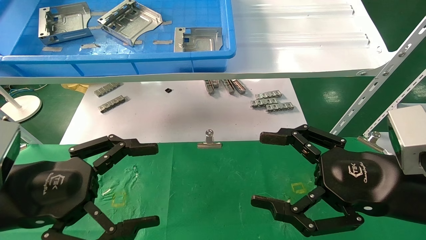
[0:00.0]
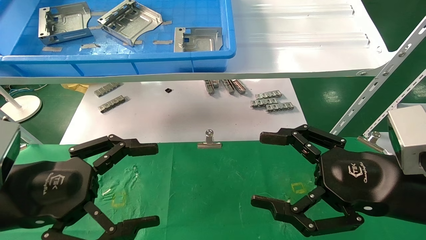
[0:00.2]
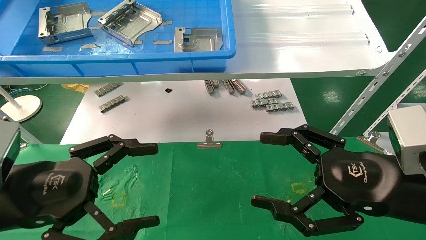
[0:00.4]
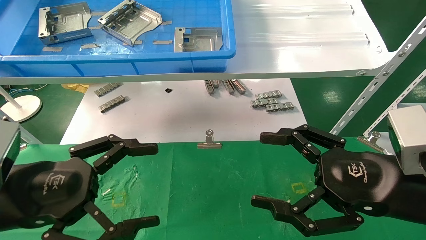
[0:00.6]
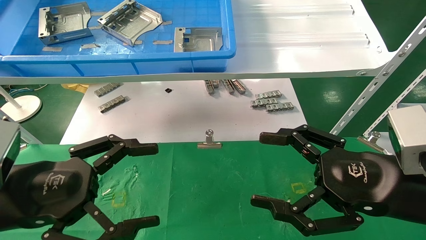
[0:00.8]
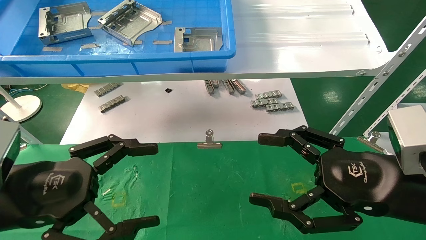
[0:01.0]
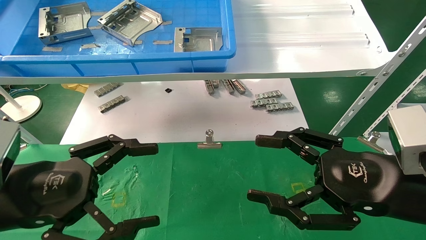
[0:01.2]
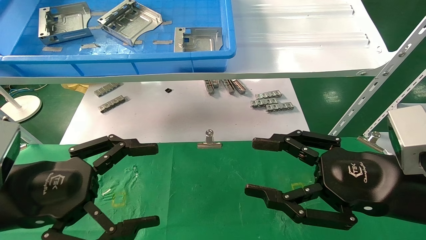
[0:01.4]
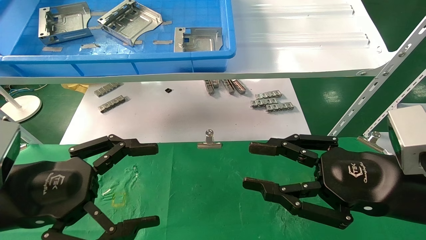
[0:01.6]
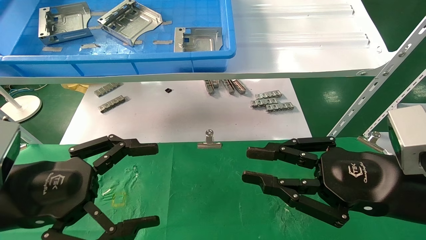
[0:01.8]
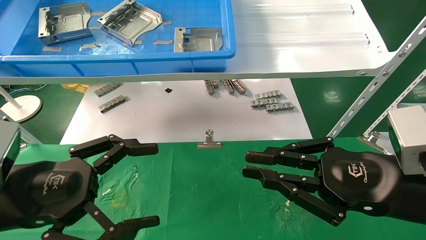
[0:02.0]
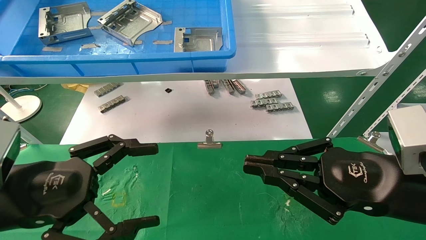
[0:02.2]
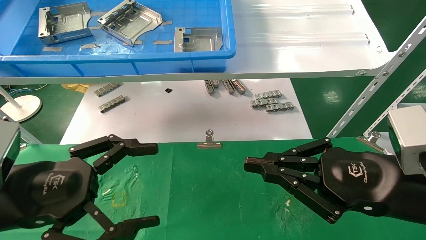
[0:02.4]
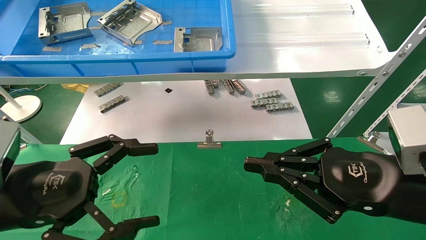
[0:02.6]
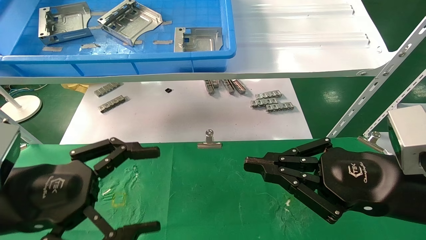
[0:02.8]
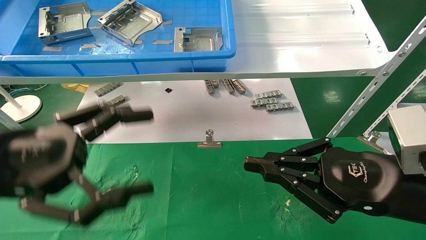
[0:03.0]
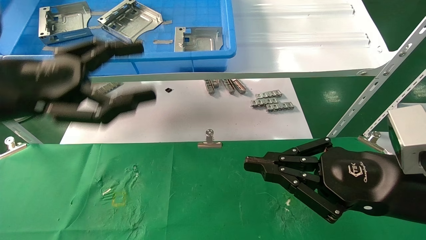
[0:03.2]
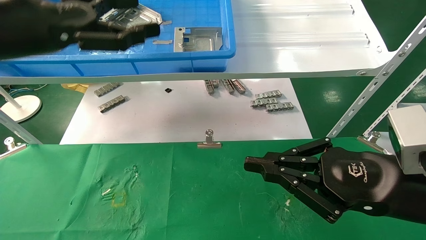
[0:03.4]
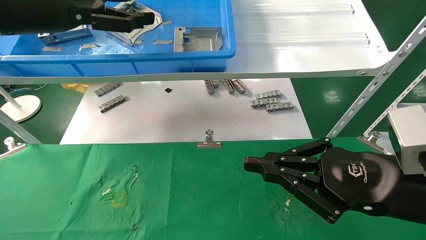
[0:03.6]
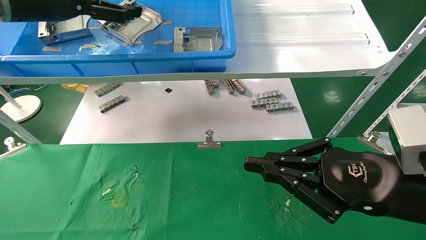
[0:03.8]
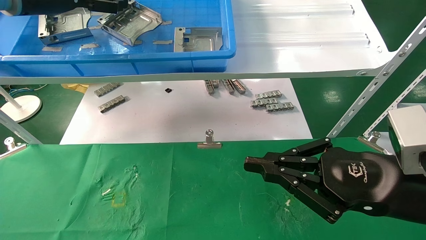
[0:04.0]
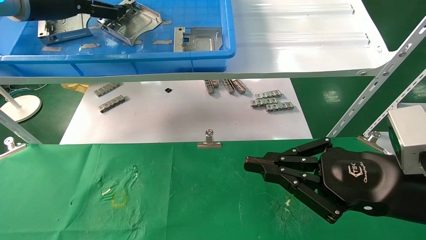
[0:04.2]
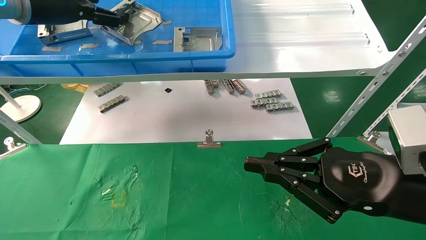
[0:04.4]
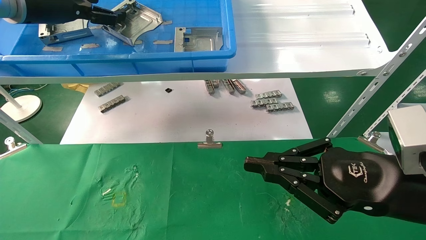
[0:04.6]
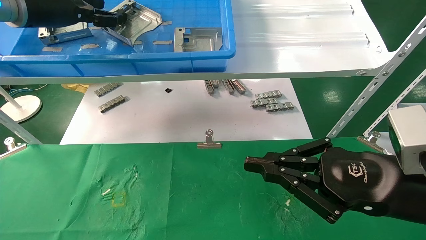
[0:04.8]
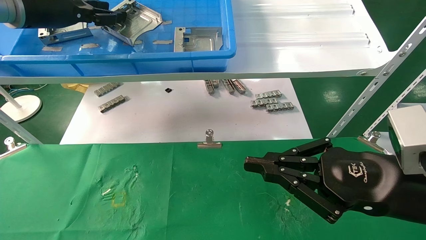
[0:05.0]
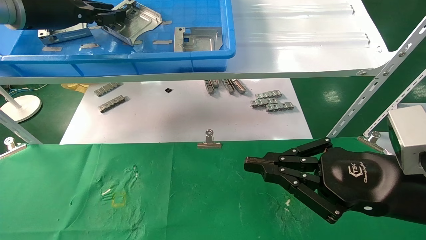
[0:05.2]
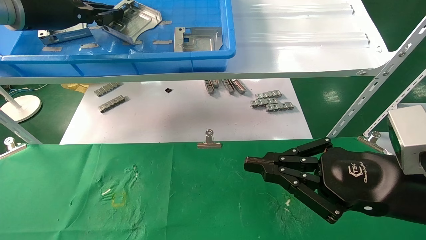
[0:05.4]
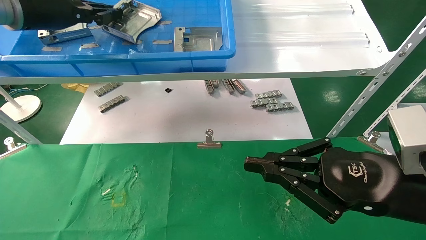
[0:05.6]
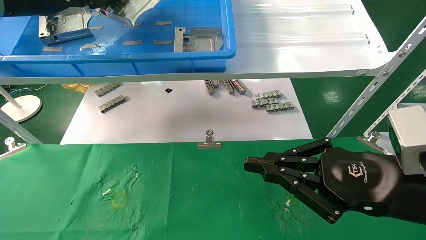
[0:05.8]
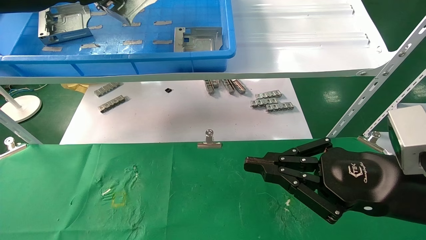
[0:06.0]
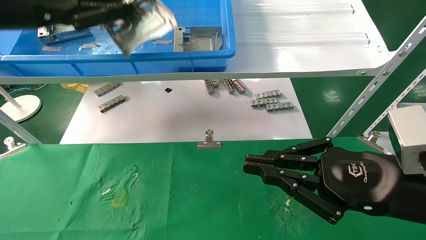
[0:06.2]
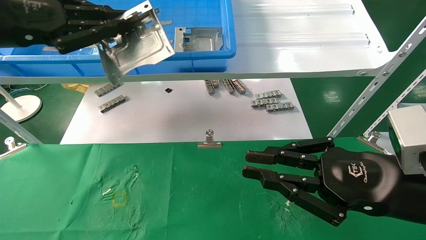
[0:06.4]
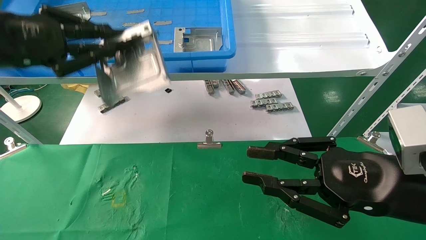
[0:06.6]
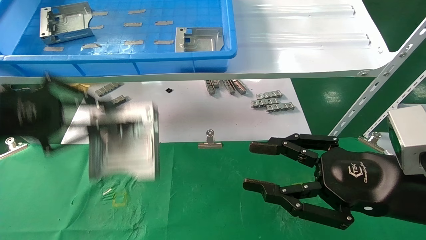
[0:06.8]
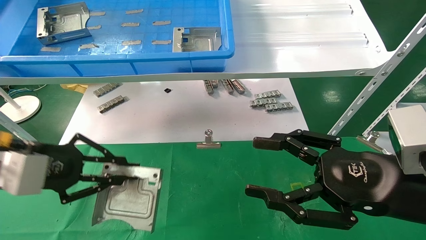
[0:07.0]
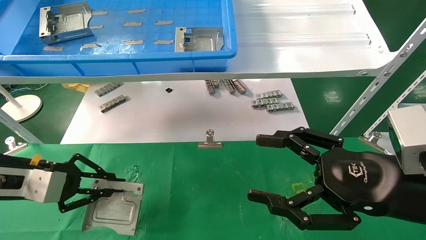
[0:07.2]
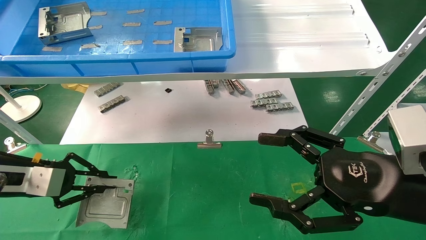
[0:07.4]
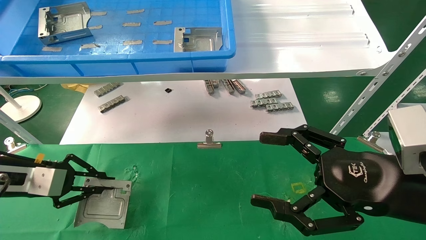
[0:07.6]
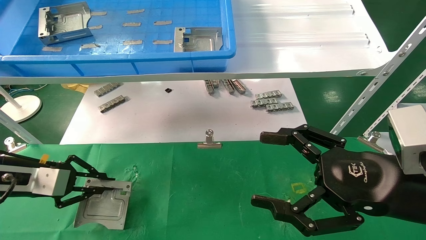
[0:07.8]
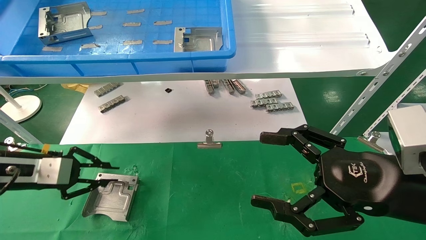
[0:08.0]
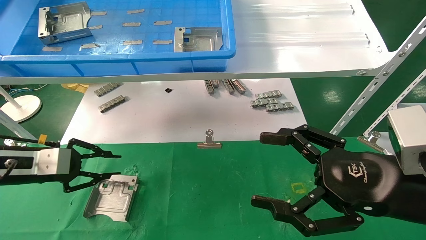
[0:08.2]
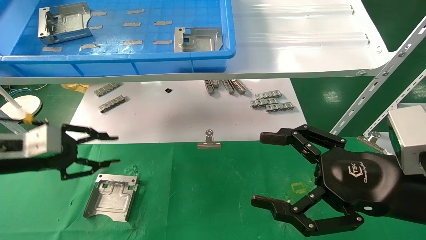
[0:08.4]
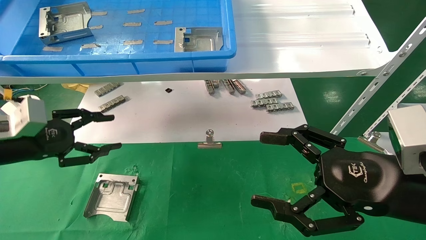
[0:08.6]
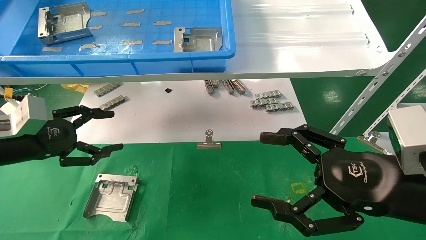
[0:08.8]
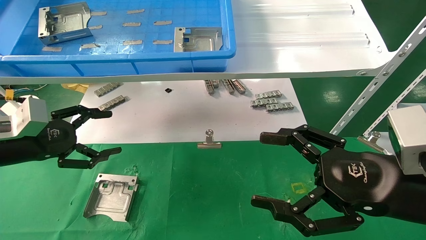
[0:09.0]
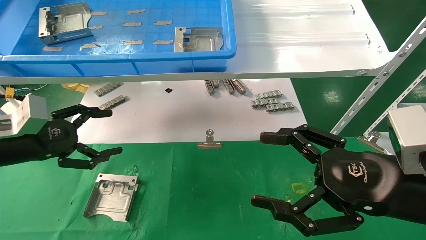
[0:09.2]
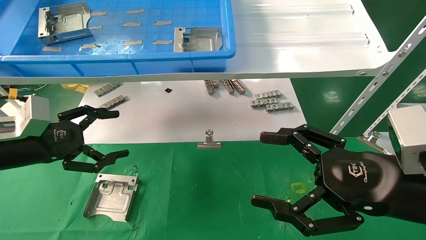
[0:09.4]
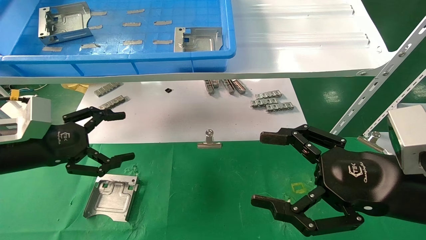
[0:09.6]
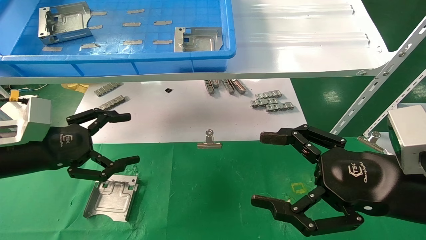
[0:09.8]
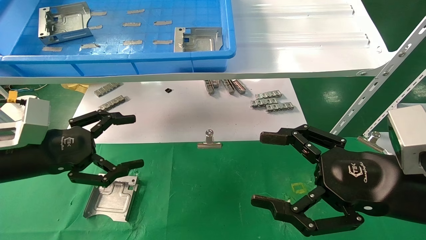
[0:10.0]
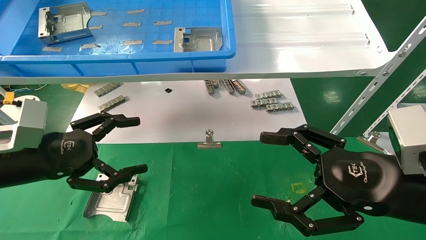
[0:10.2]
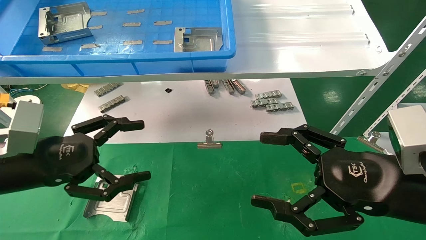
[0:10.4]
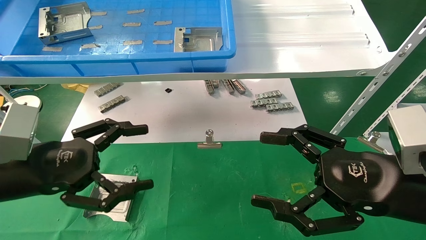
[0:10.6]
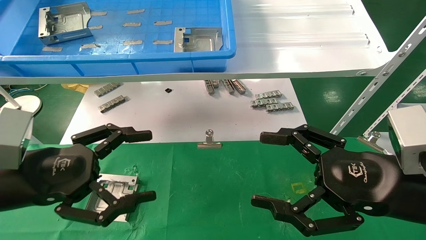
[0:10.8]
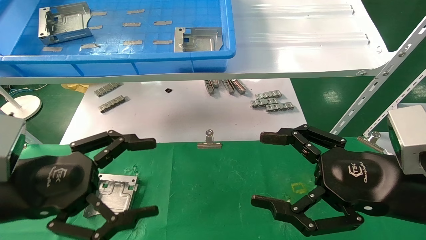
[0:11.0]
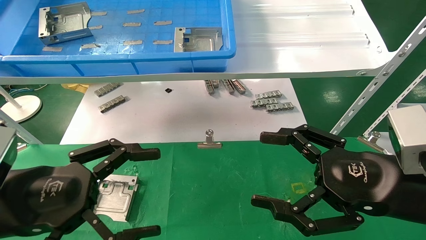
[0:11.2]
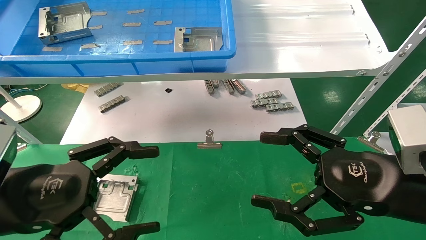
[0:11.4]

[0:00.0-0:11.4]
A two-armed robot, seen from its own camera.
Task of the whole recording: use the mechanical arm to pick up the parts and place them on the table.
Step, 0:03.2 to 0:05.4: Pick up the hard drive bracket from the feeding area.
Step, 0:05.6 to 0:08.4: Place the hard drive bracket into the box.
0:00.0 to 0:01.4: The two grippers keep their place.
0:01.4 to 0:02.8: The right gripper closes up.
0:02.8 to 0:04.2: The left gripper heads upward and forward, covering some 30 cm.
0:04.2 to 0:05.6: The left gripper closes its fingers.
0:05.6 to 0:07.2: The right gripper opens, while the left gripper shifts approximately 25 cm downward.
0:07.2 to 0:08.6: The left gripper opens its fingers.
0:08.6 to 0:10.0: The left gripper travels to the right by about 5 cm, and opens.
0:10.0 to 0:11.4: The left gripper is displaced backward and to the right by some 10 cm.

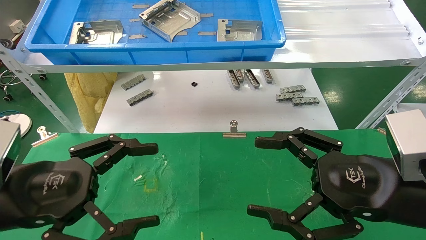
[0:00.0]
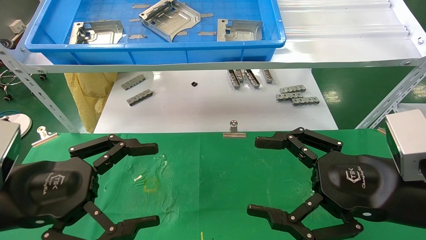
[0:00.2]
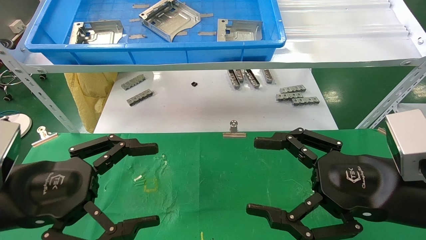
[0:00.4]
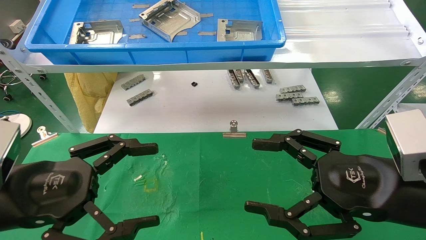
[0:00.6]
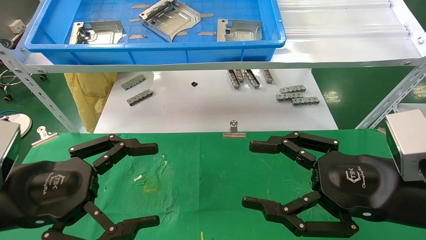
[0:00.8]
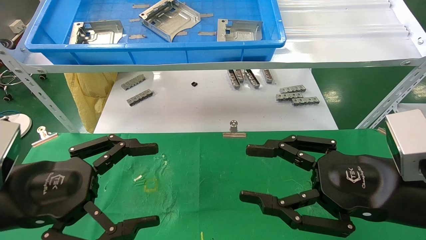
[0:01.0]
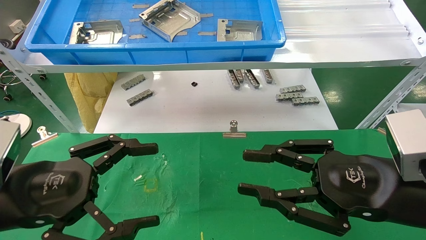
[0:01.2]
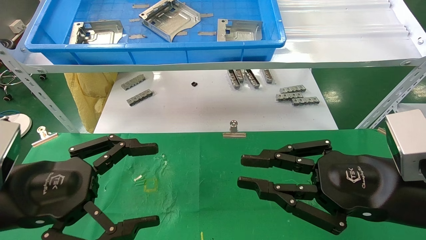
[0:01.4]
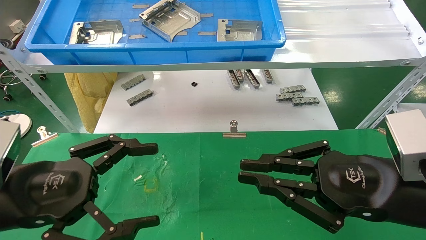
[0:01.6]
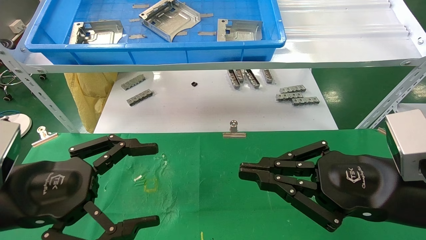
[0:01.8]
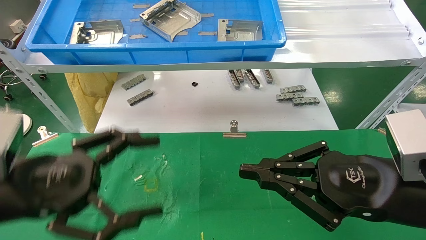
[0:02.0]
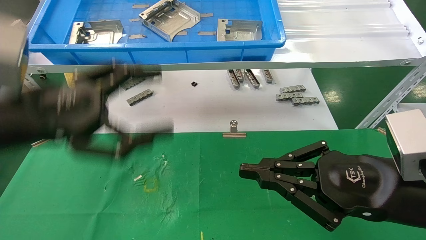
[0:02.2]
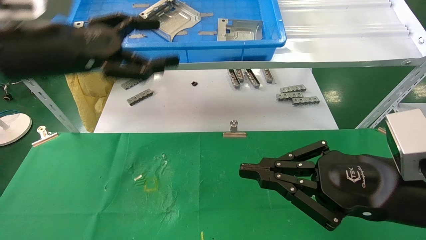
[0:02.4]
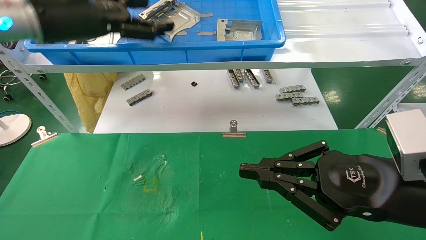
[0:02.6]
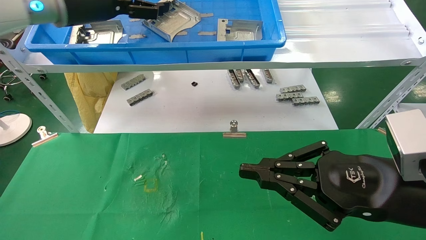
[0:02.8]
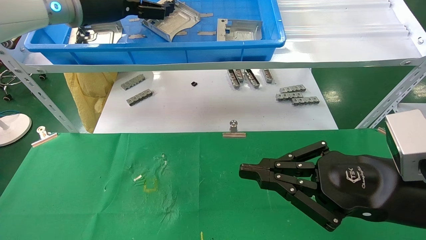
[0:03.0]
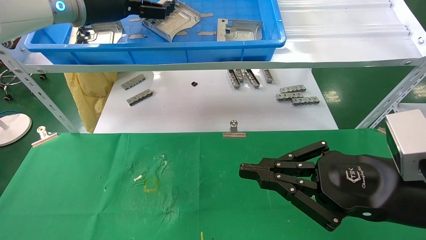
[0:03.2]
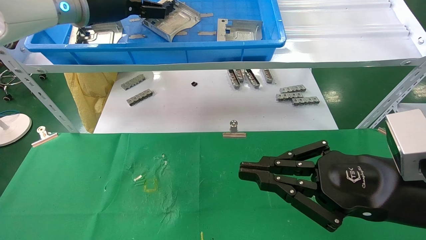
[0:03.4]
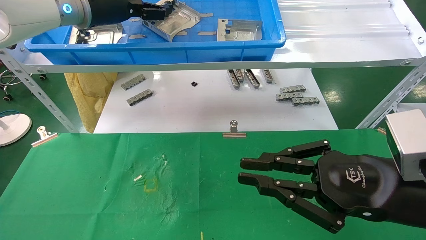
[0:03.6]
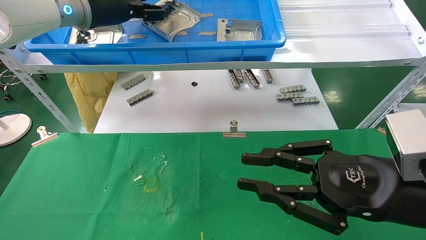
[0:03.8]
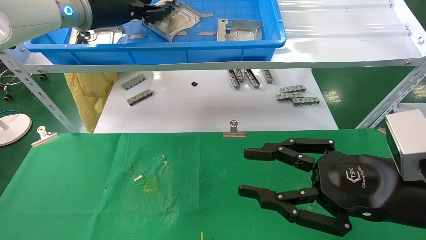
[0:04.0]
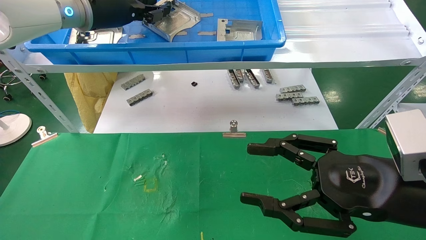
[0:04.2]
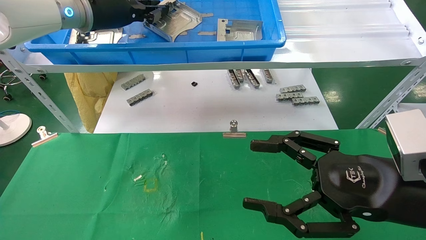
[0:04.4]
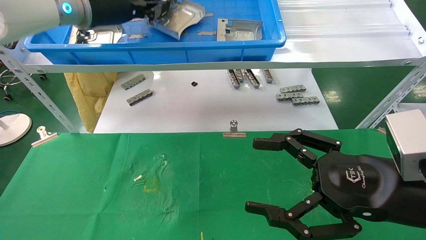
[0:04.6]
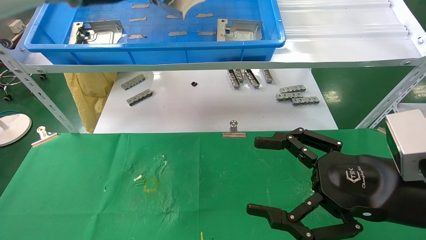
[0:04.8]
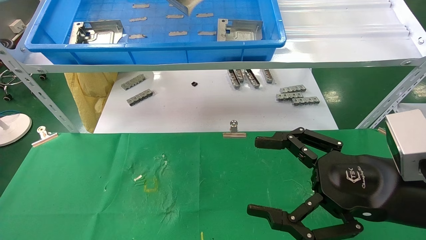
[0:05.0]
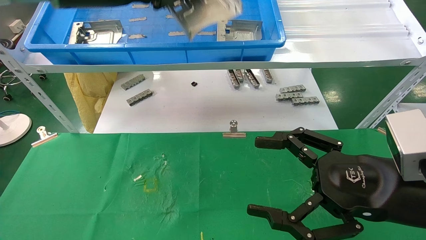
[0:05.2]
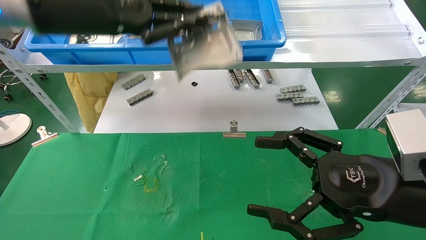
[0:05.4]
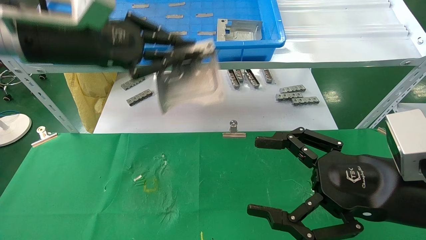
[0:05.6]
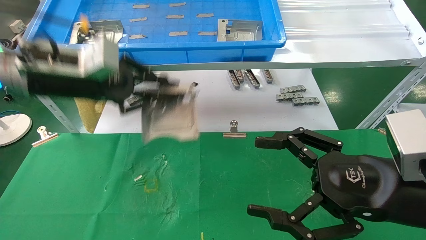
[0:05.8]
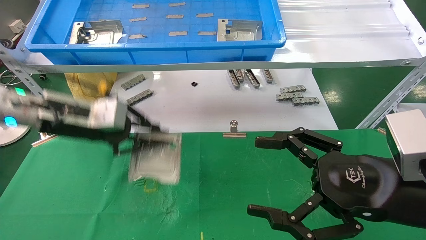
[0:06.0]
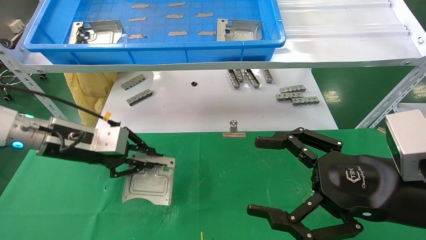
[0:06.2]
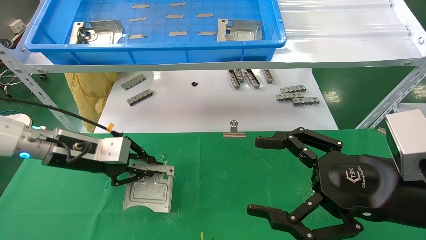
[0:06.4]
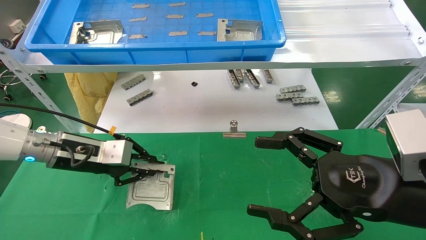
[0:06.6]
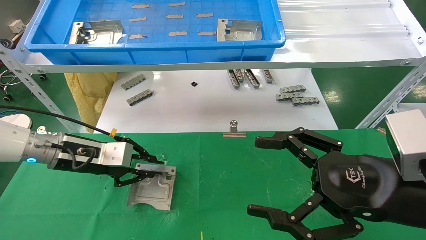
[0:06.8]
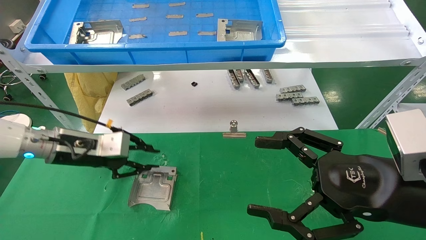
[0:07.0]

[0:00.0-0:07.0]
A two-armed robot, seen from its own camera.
Task of the whole recording: use the mechanical arm to pick up the parts and place them on the table.
Step, 0:02.4 to 0:04.4: Pick up the hard drive bracket from the feeding area.
Step, 0:04.6 to 0:07.0: Place the hard drive bracket into the box.
0:00.0 to 0:01.4: The right gripper closes its fingers.
0:01.4 to 0:02.8: The left gripper heads upward and forward, covering approximately 30 cm.
0:02.8 to 0:04.2: The left gripper closes, while the right gripper opens up.
0:04.2 to 0:05.6: The right gripper opens up. Meanwhile the left gripper moves backward and downward, roughly 10 cm, and closes up.
0:05.6 to 0:07.0: The left gripper travels downward by some 20 cm.
